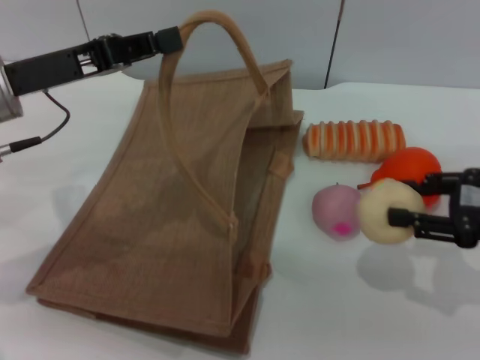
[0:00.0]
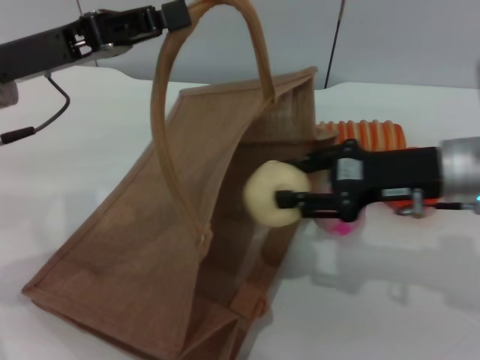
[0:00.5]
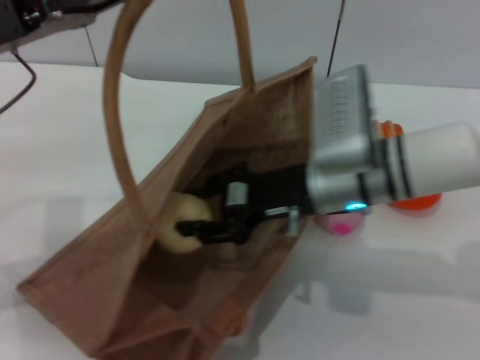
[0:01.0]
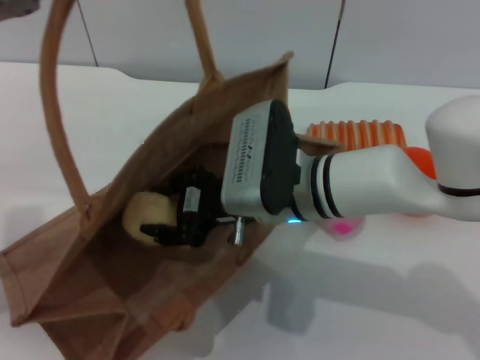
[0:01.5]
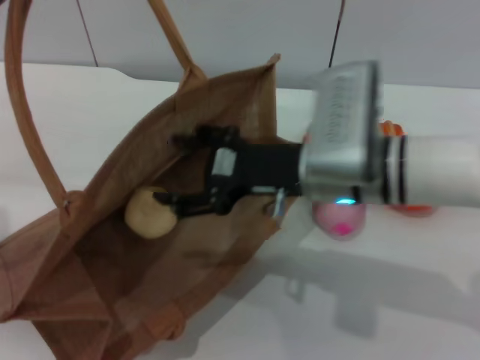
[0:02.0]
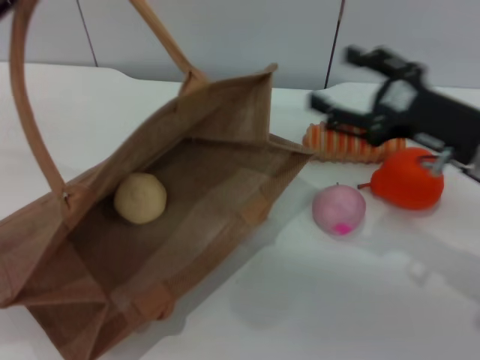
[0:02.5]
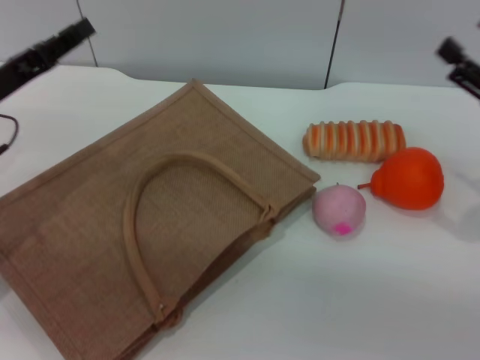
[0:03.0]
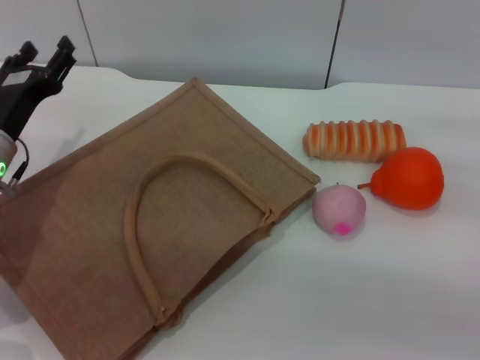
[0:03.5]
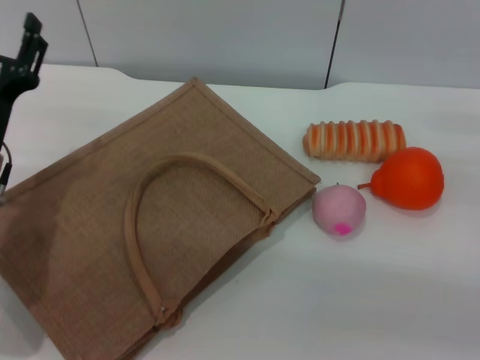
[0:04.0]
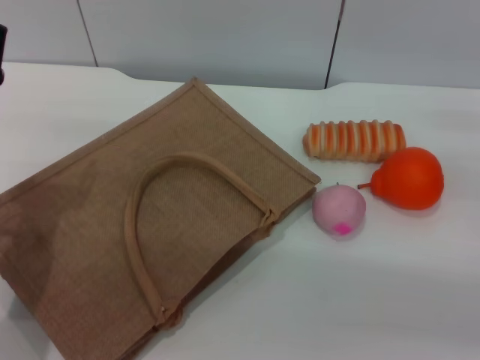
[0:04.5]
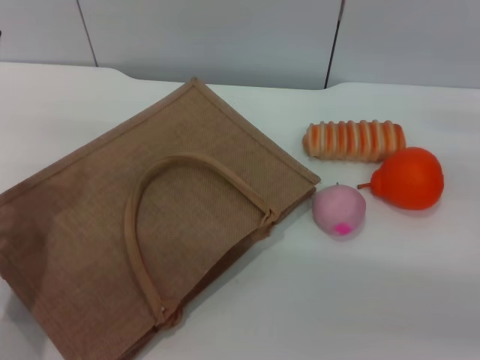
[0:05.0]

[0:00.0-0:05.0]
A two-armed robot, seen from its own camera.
Task of the whole recording: pick up the egg yolk pastry from the table and place it in the brown handbag.
Step, 0:00.0 to 0:02.0: Place the egg yolk pastry into the woven bag with the right gripper.
Step, 0:02.5 to 0:03.0: Lower the woven bag with the left gripper to close it.
0:00.0 to 0:02.5: The right gripper goes to the left and returns, about 25 cm each way, and opens its fingers. Meanwhile the left gripper travels to the left by roughly 10 cm.
0:02.5 to 0:05.0: The left gripper goes some 15 cm downward, to the right and backward, and opens. Meanwhile the right gripper goes approximately 15 cm to the right and downward.
